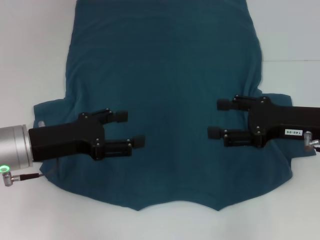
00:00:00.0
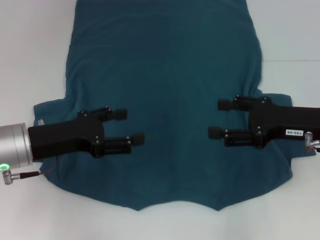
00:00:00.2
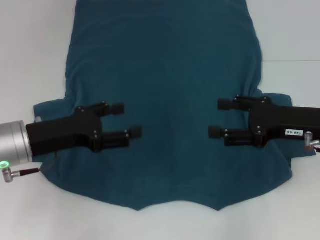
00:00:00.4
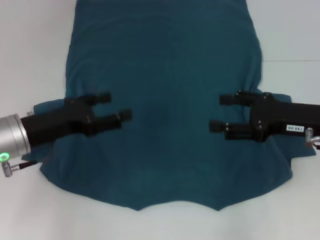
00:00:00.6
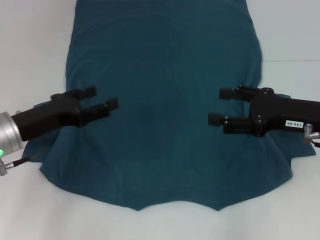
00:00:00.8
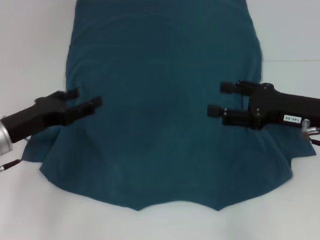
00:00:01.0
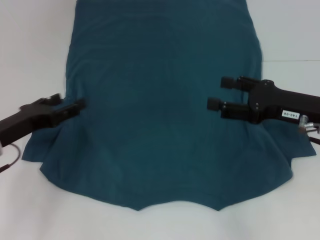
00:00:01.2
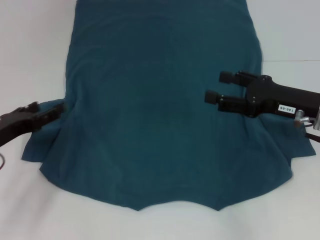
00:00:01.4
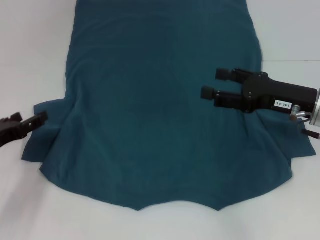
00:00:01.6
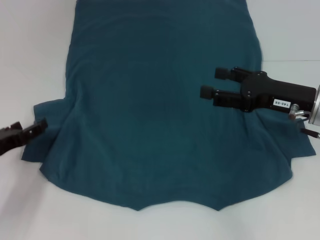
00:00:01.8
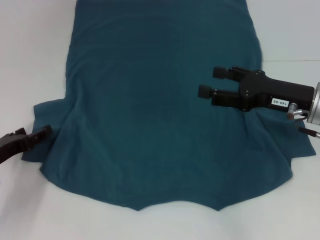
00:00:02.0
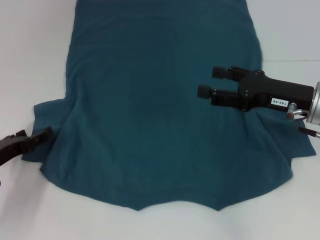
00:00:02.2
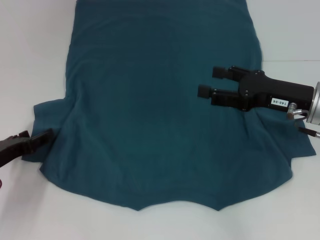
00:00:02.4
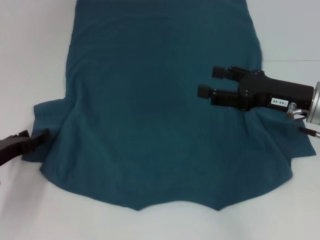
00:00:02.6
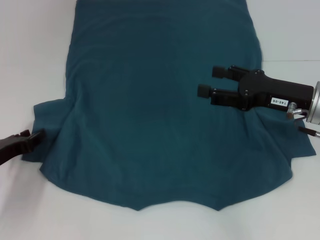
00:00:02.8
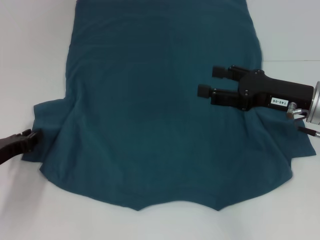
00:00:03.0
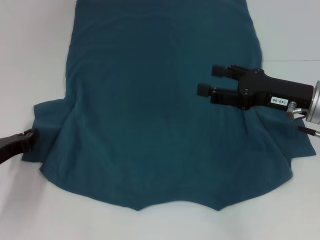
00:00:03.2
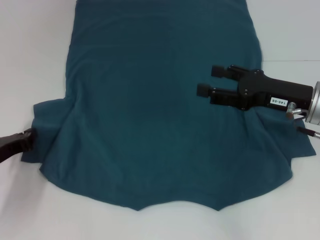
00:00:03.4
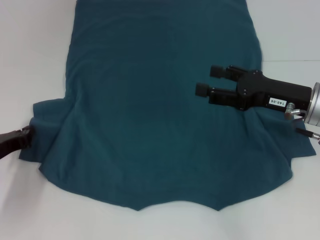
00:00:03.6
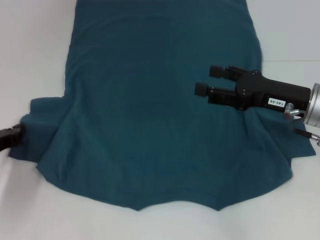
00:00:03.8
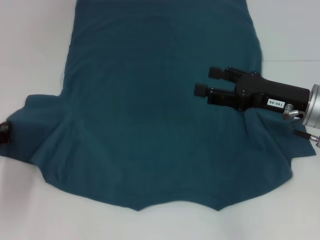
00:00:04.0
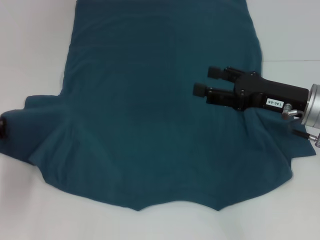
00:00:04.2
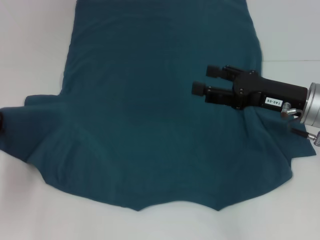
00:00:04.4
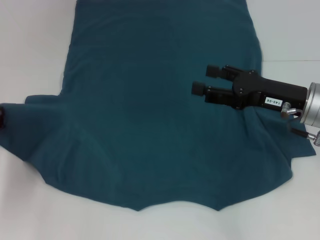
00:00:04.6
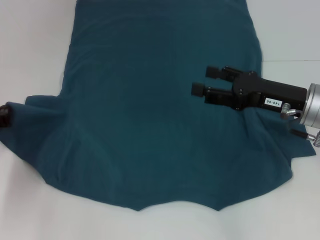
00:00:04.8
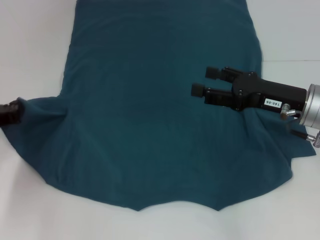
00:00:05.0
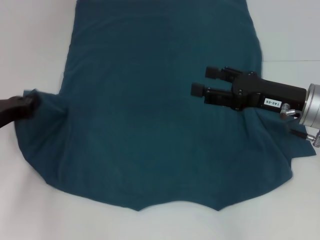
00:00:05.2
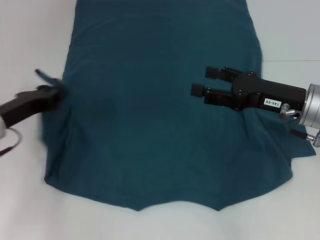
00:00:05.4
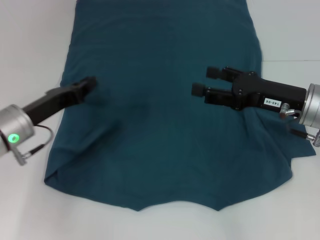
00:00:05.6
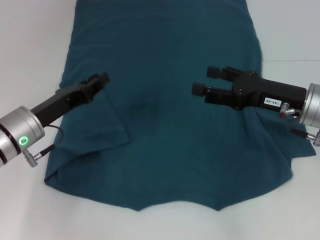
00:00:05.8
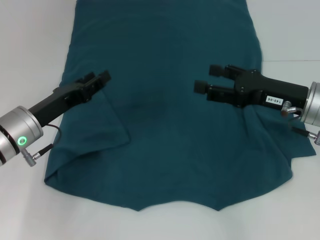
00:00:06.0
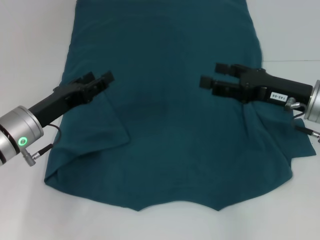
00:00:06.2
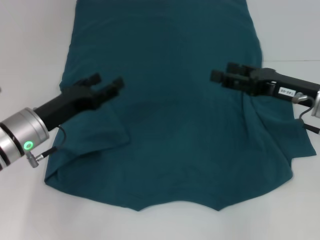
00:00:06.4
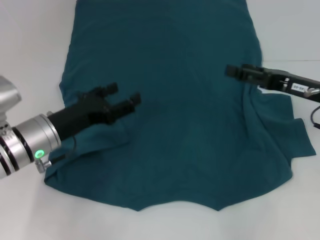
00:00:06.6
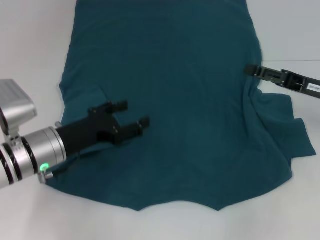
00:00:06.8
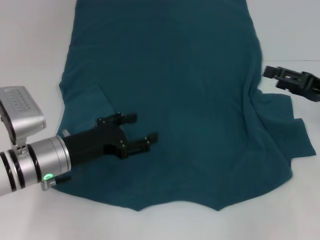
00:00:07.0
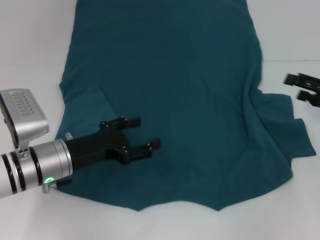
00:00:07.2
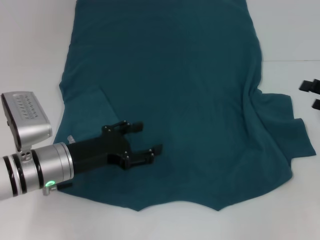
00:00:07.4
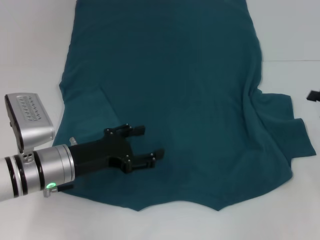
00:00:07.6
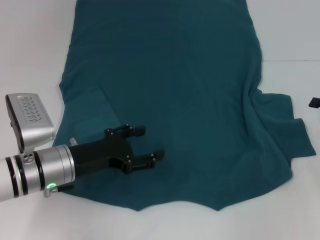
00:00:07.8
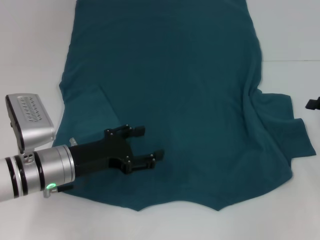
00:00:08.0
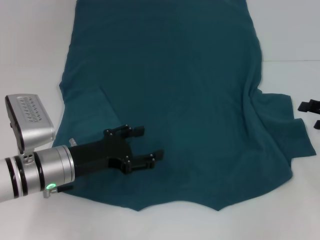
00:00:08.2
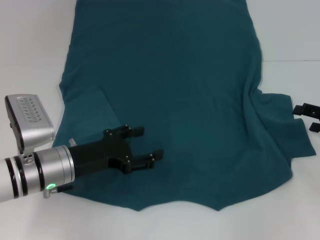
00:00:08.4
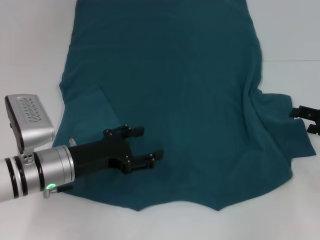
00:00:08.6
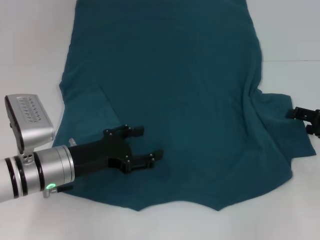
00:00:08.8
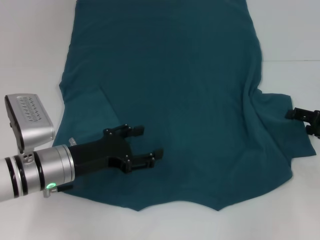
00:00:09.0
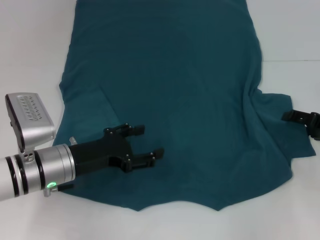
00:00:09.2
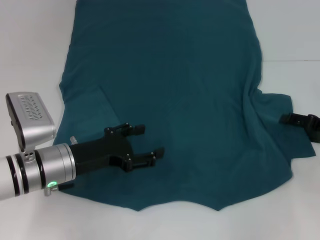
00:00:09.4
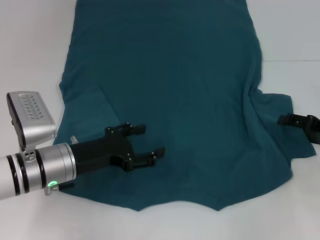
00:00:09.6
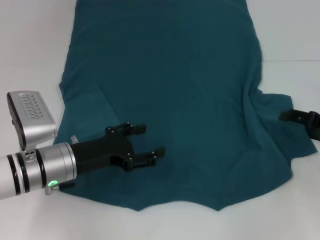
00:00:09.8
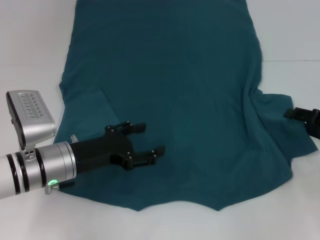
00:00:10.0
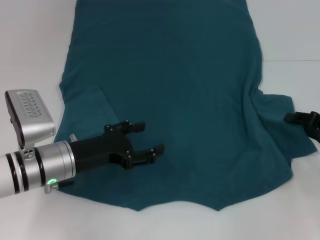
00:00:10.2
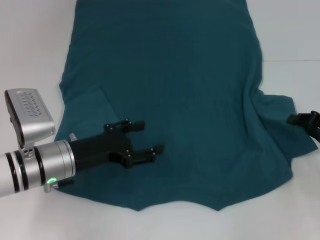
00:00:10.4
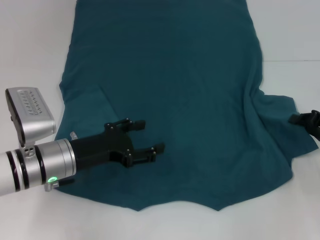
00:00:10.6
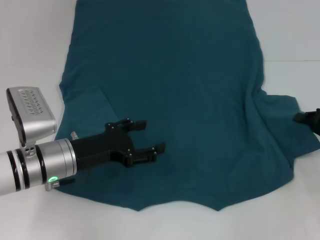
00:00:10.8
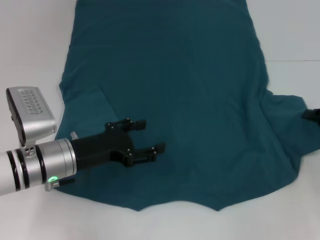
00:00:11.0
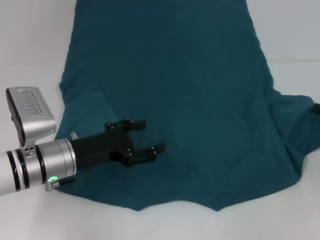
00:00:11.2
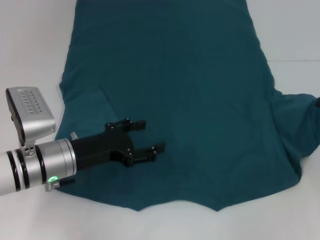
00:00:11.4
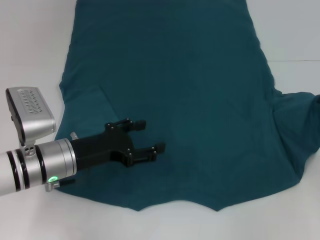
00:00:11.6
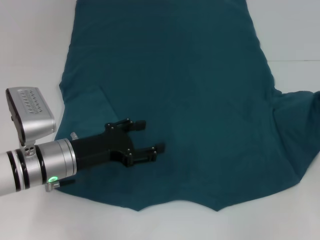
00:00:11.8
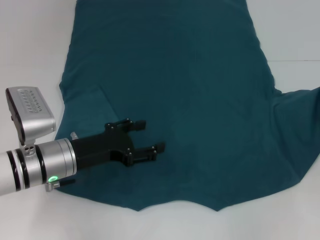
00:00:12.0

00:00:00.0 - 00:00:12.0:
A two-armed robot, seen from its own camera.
Step, 00:00:00.0 - 00:00:05.6: Fold the bottom left sleeve with your left hand.
00:00:00.0 - 00:00:01.6: The left gripper travels to the left and downward by some 10 cm.
00:00:01.6 - 00:00:03.0: The left gripper closes its fingers.
00:00:03.0 - 00:00:04.4: The left gripper closes.
00:00:04.4 - 00:00:06.0: The left gripper shifts about 10 cm to the right, and opens its fingers.
00:00:06.0 - 00:00:07.6: The left gripper changes place by some 5 cm, and opens up, while the right gripper travels to the right by roughly 15 cm.
00:00:07.6 - 00:00:09.0: The grippers make only small movements.
00:00:09.0 - 00:00:10.4: The right gripper closes its fingers.
00:00:10.4 - 00:00:12.0: The right gripper moves roughly 5 cm.

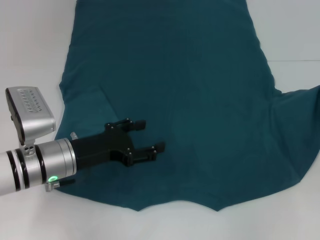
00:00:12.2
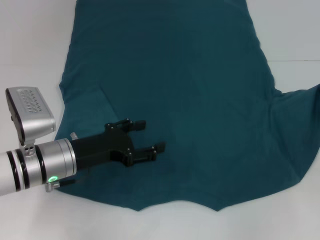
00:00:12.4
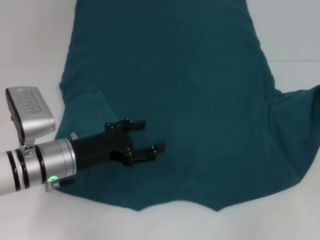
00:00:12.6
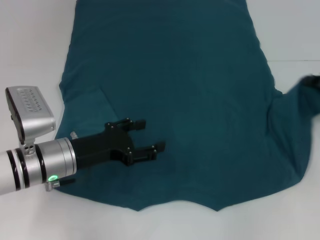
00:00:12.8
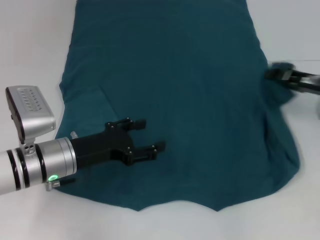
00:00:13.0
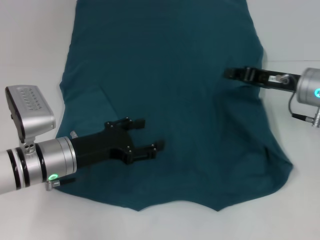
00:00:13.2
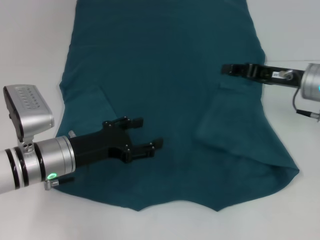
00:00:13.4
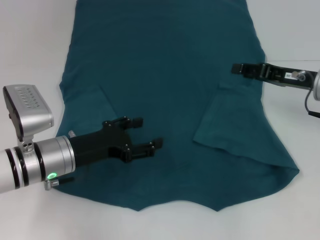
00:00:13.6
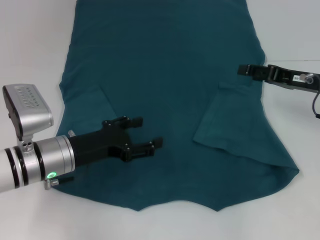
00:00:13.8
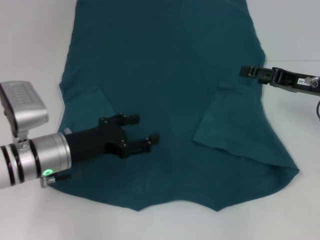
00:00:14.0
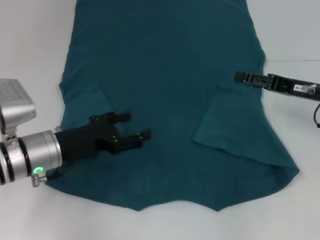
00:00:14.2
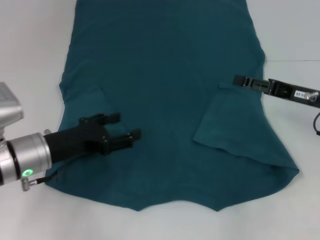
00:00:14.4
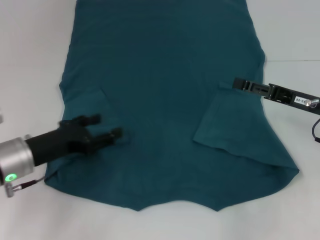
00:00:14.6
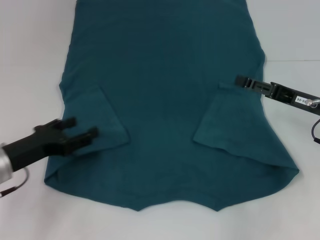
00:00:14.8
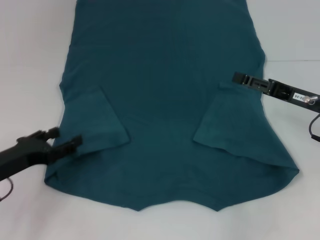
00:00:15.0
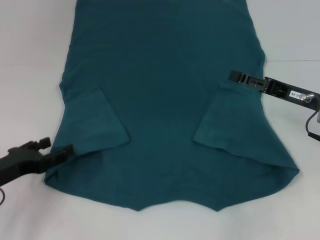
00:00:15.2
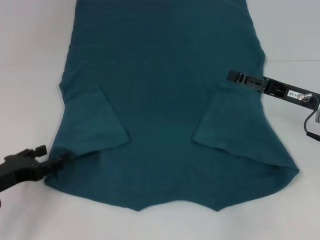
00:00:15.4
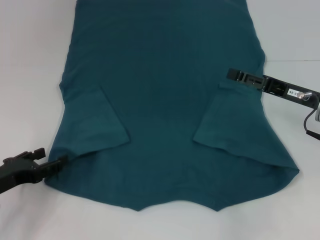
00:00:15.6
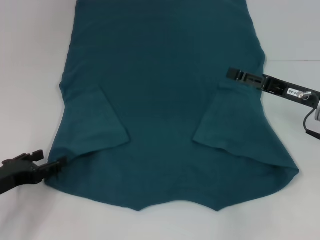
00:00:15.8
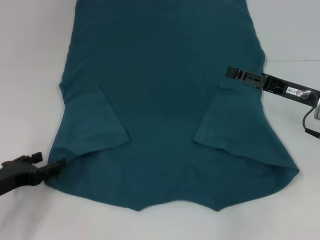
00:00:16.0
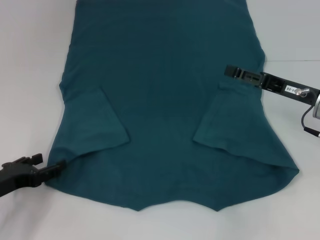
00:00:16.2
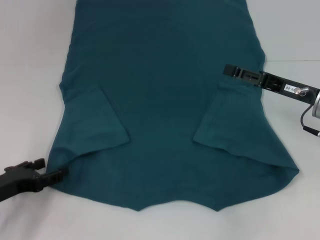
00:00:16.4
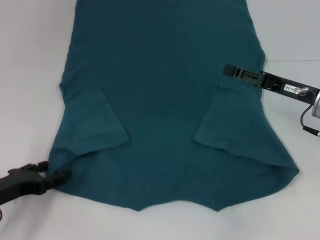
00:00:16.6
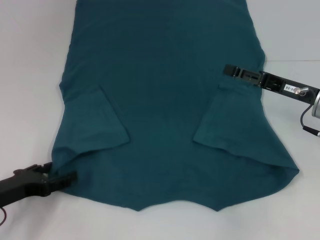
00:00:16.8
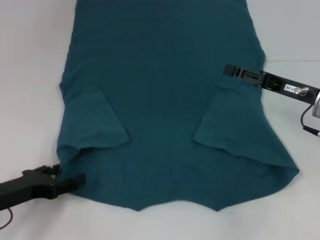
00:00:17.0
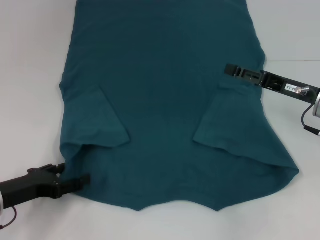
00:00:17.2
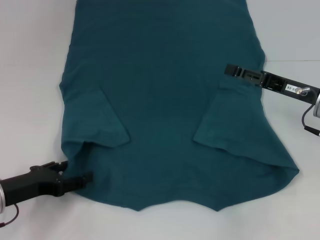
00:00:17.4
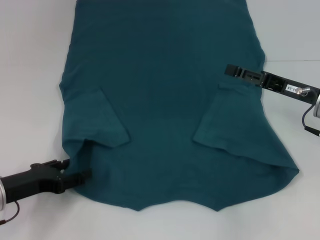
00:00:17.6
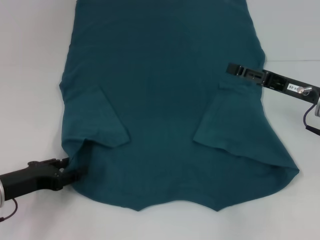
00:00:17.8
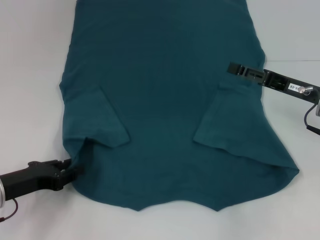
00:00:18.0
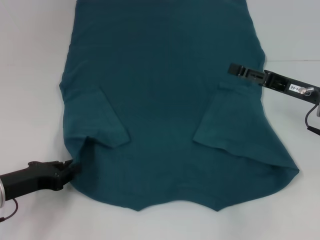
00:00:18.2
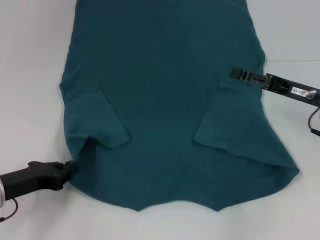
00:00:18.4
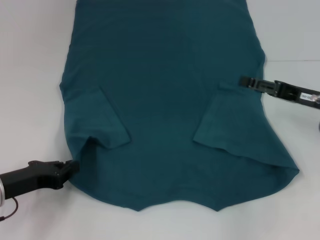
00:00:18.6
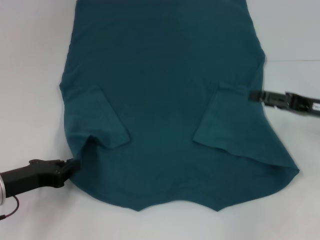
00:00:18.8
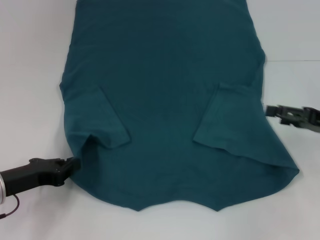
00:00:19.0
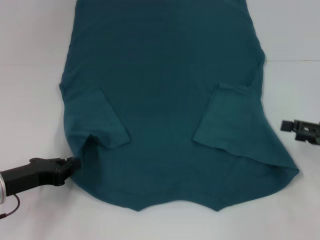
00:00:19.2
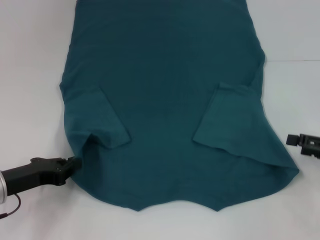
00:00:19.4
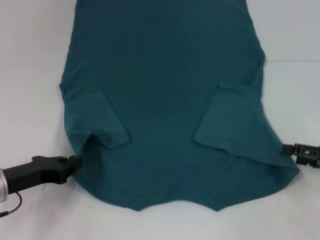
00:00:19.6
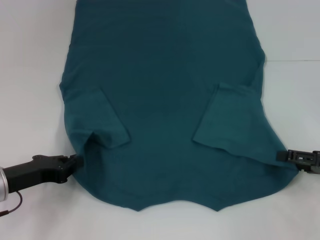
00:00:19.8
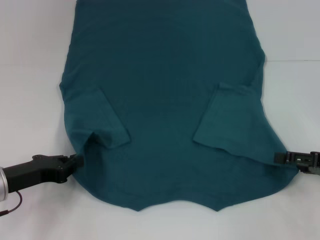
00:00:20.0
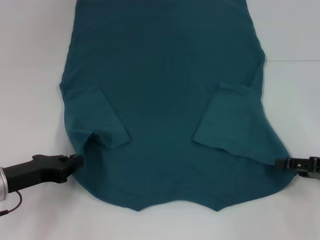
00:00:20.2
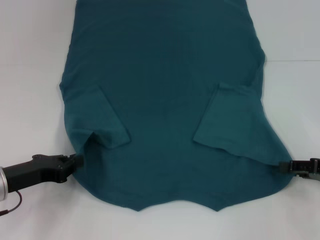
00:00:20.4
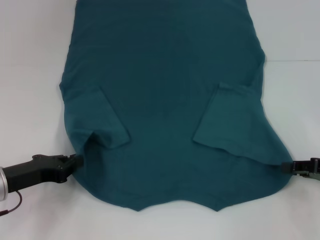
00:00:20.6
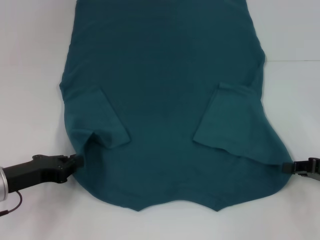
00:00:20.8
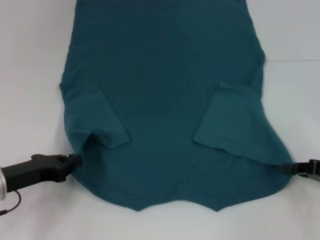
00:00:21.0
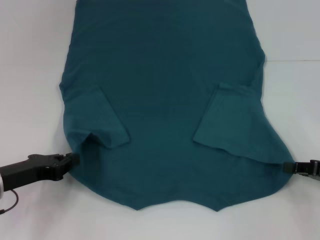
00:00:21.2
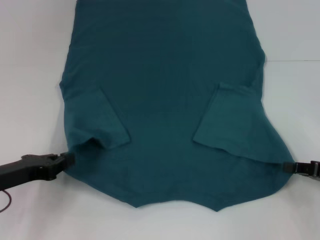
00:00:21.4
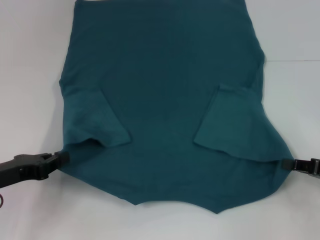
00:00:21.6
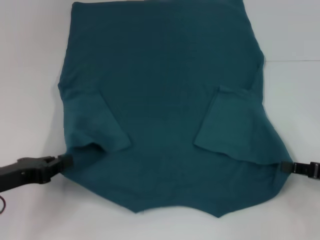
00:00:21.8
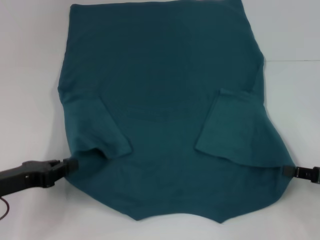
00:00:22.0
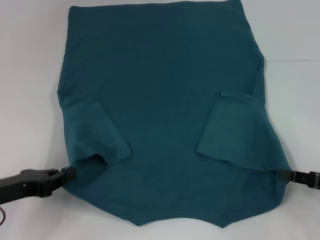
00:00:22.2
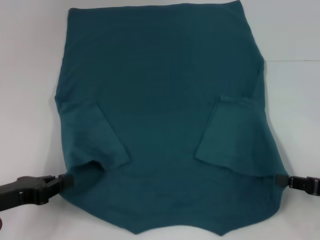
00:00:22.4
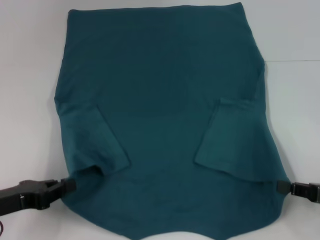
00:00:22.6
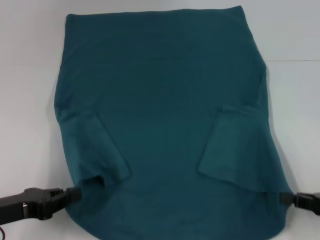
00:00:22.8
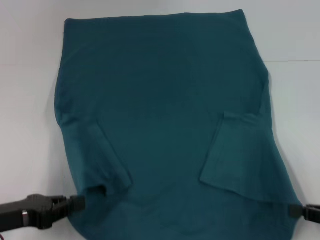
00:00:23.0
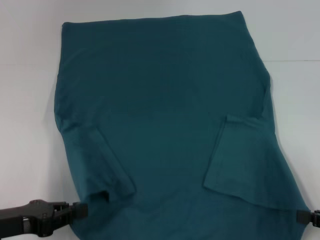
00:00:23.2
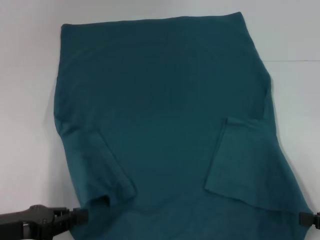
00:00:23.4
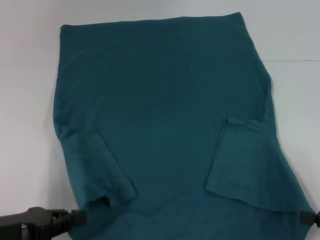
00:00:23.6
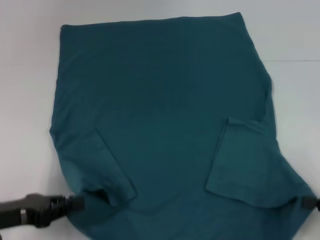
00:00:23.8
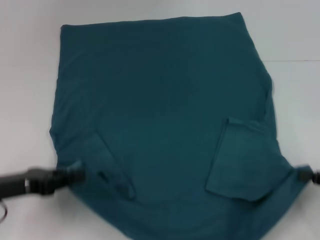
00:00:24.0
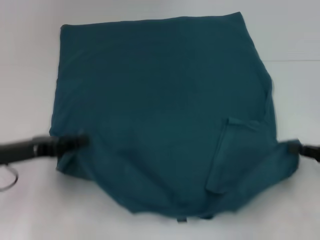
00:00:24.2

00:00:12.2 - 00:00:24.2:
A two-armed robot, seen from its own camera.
Step, 00:00:13.4 - 00:00:18.4: Grab the bottom left corner with your left hand.
Step, 00:00:18.6 - 00:00:21.0: Grab the bottom right corner with your right hand.
00:00:12.2 - 00:00:13.8: The right gripper moves to the left, some 10 cm, and opens up.
00:00:13.8 - 00:00:15.2: The left gripper shifts roughly 15 cm to the left and backward.
00:00:15.2 - 00:00:16.6: There are only small adjustments of the grippers.
00:00:16.6 - 00:00:18.2: The left gripper closes up.
00:00:18.2 - 00:00:19.8: The right gripper is displaced to the right and backward by about 10 cm, while the left gripper closes.
00:00:19.8 - 00:00:21.2: The right gripper closes up.
00:00:22.6 - 00:00:24.2: The left gripper goes some 5 cm forward.
